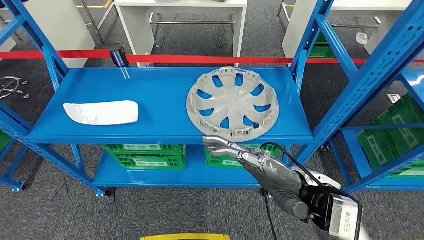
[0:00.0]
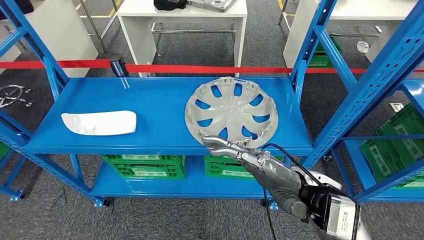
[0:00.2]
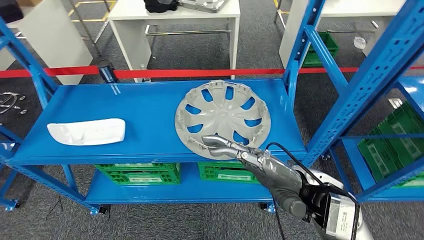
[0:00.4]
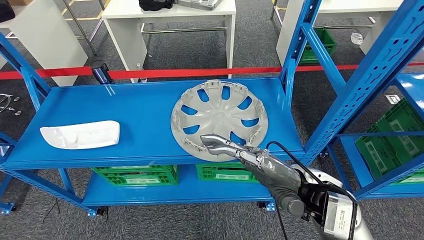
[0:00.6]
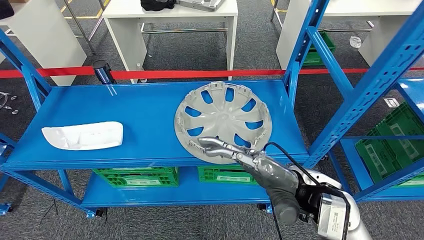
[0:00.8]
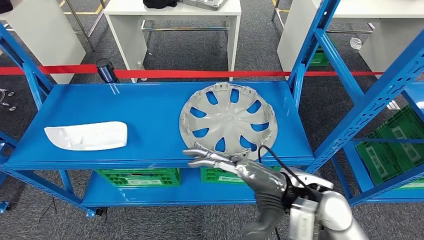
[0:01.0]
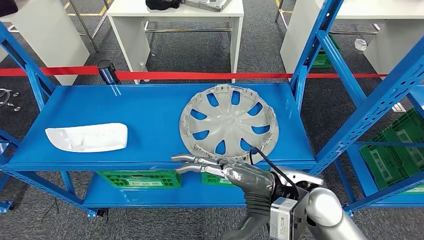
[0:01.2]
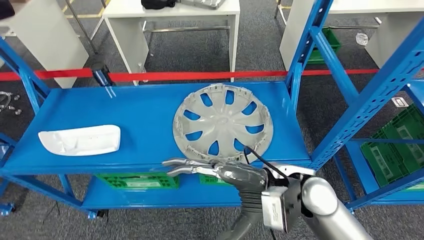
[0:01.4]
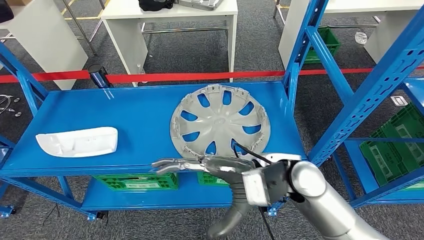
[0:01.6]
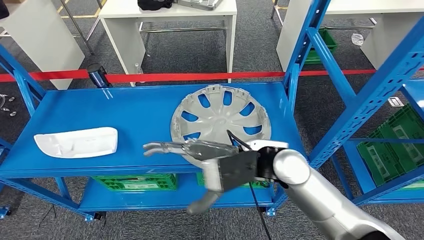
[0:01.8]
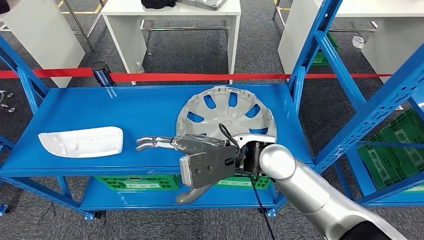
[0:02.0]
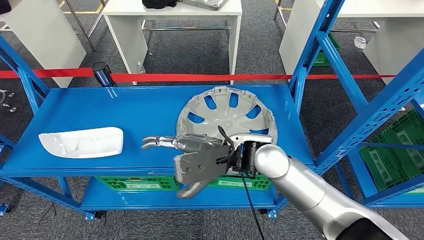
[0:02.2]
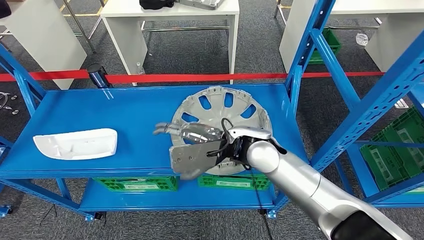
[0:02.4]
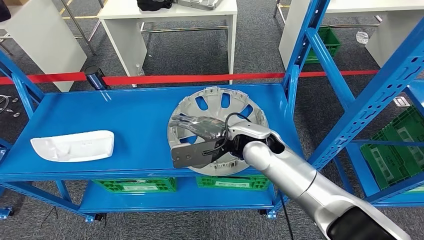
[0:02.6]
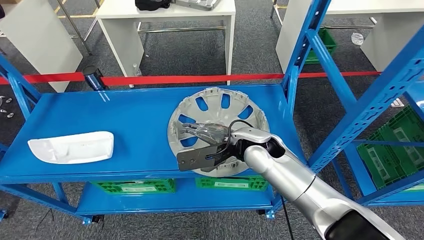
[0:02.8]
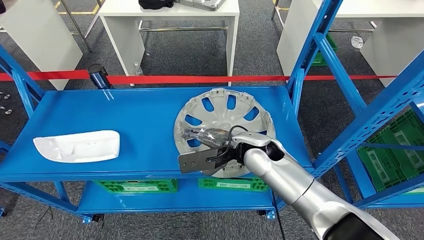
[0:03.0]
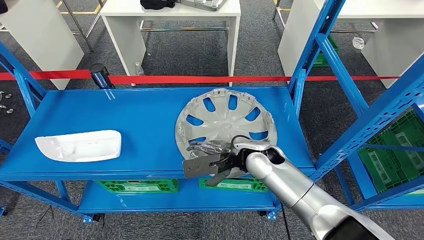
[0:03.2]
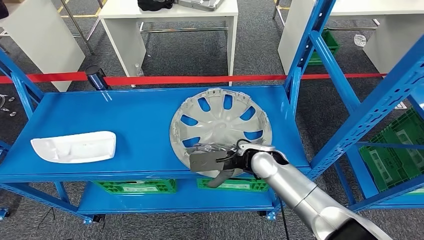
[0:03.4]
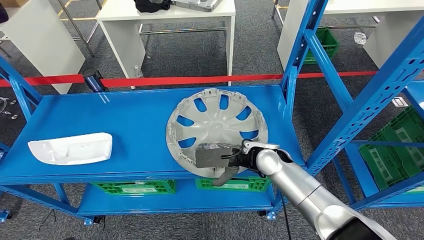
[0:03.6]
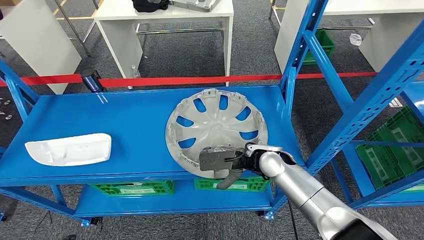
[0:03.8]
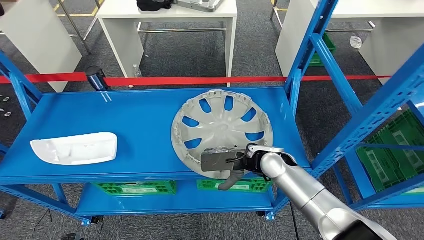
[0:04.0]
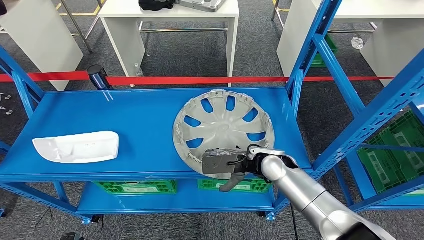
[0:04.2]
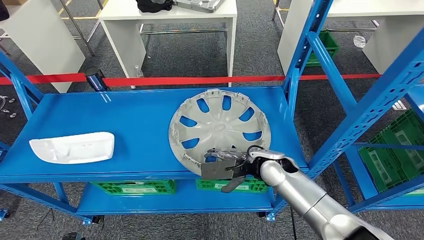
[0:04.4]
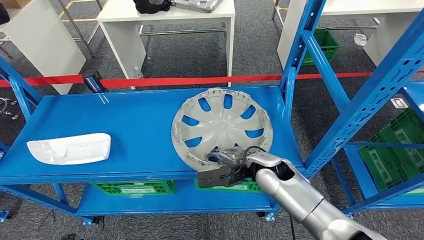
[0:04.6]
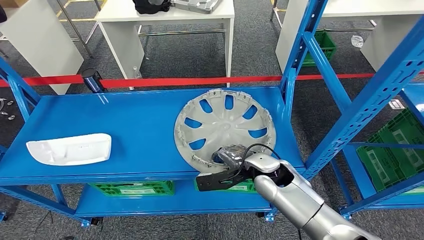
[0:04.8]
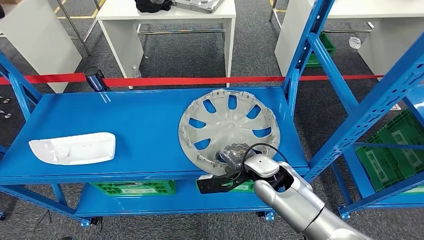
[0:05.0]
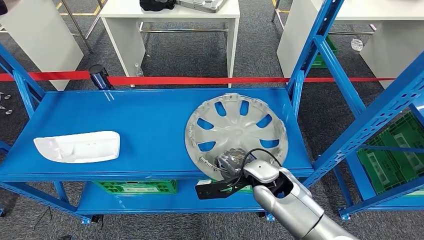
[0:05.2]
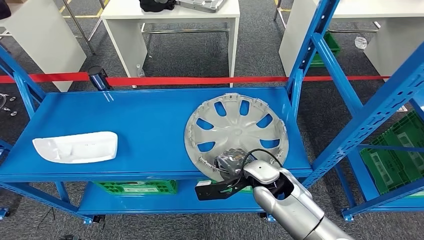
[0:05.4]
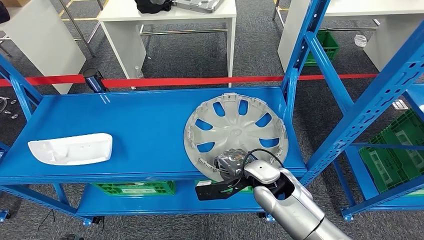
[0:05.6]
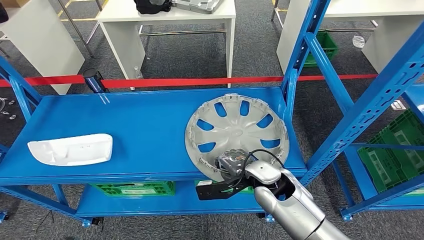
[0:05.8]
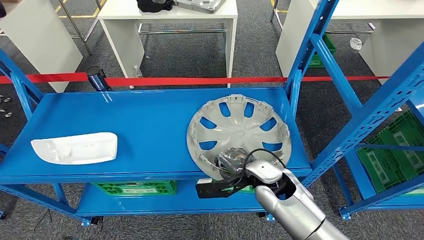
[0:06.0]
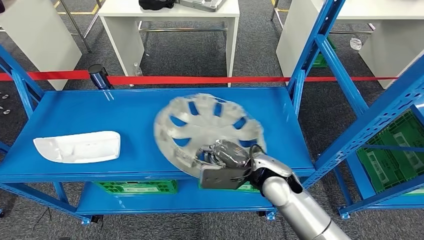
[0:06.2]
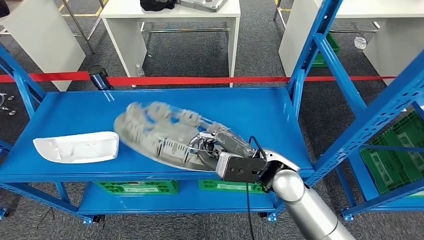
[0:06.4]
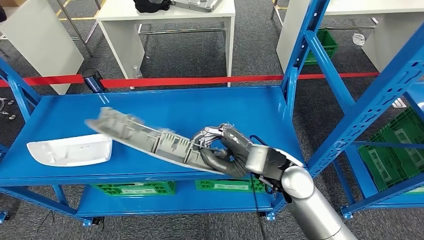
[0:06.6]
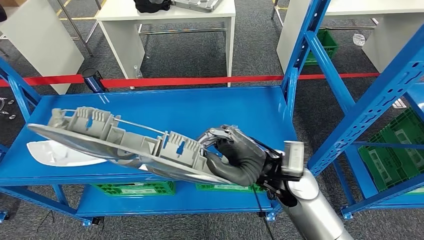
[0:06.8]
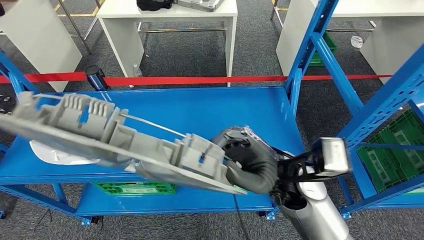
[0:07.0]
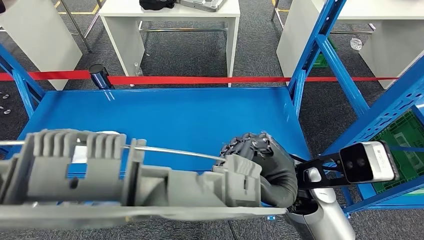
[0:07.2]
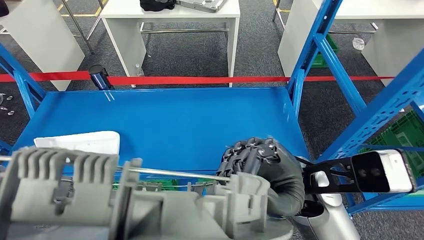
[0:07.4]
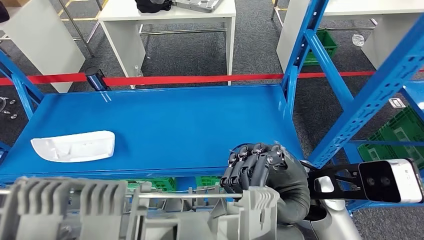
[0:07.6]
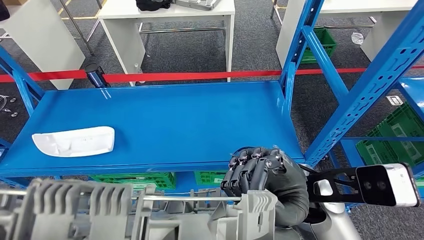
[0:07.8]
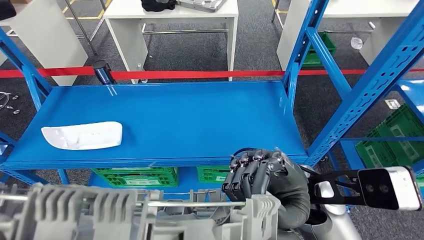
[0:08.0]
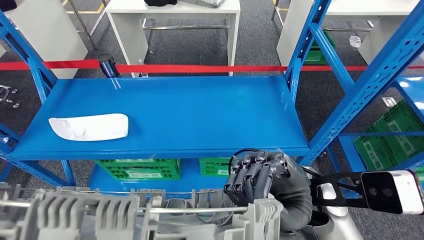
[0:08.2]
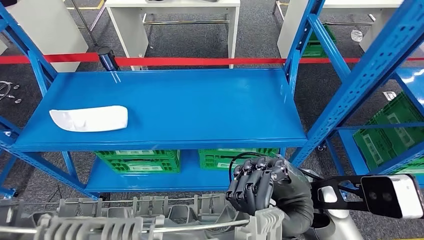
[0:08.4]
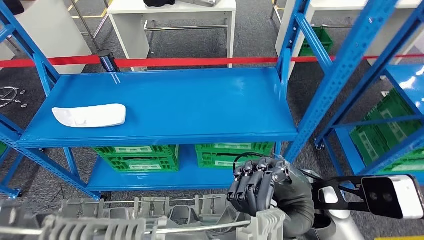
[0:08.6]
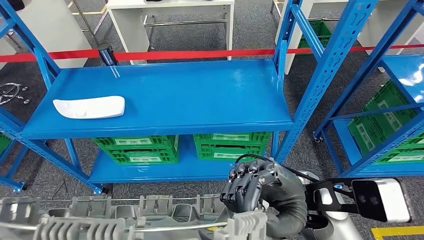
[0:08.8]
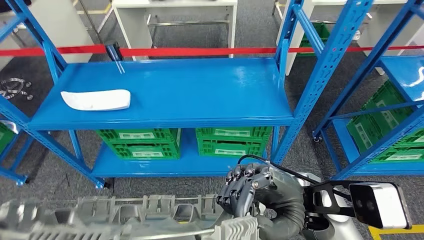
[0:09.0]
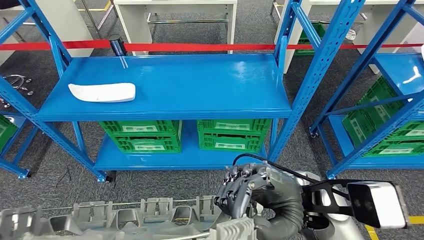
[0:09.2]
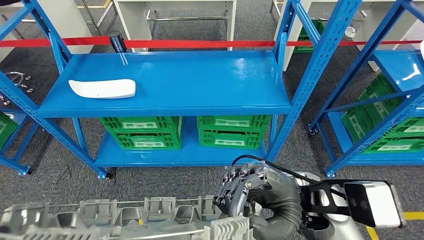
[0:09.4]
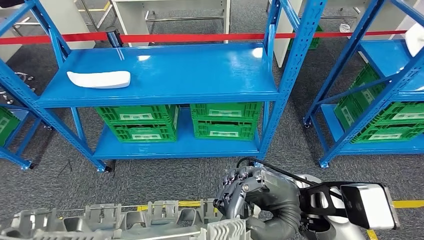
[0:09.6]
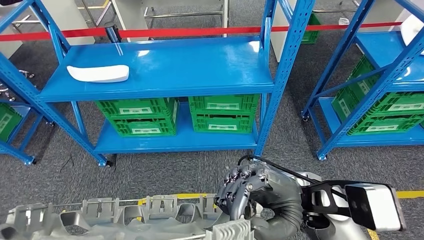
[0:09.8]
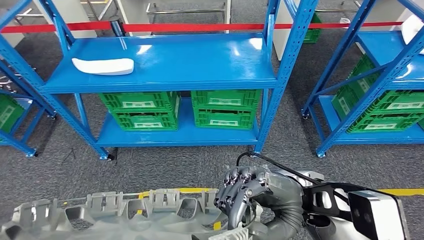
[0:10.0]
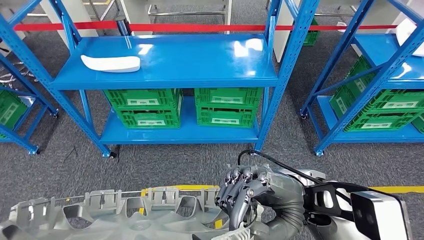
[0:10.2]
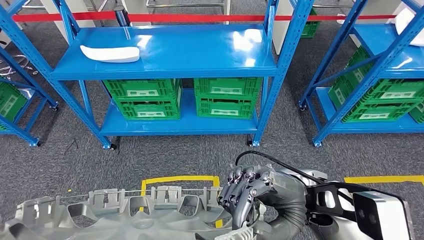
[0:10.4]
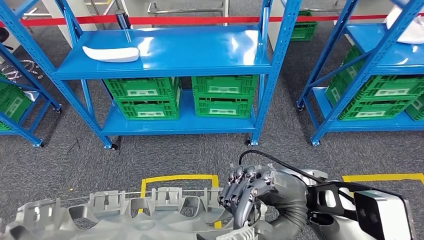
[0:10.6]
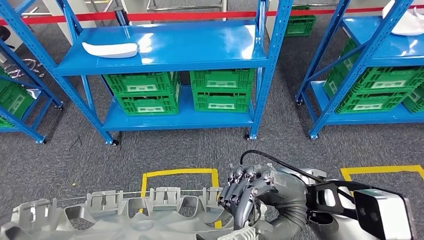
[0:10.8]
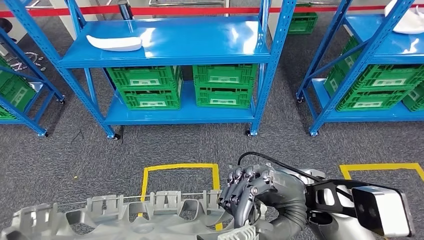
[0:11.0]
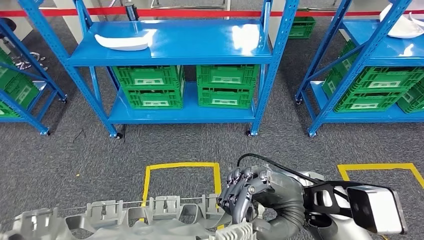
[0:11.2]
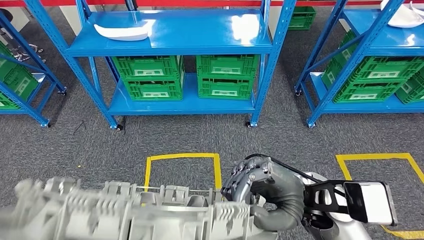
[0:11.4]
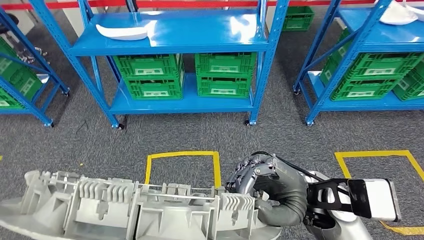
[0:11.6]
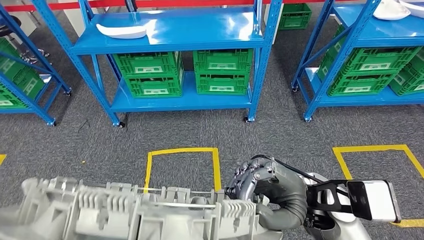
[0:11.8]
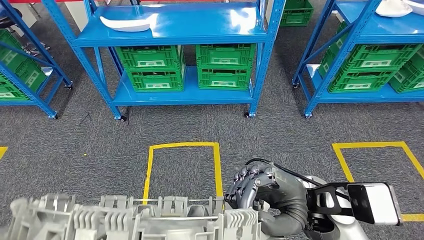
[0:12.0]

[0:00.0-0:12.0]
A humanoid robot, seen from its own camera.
Step, 0:00.0 to 0:07.6: Pick up the small component from the shelf.

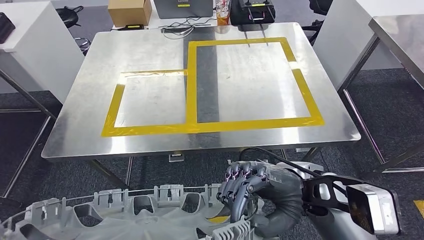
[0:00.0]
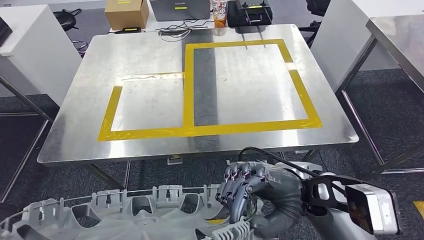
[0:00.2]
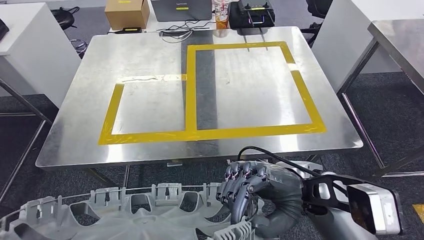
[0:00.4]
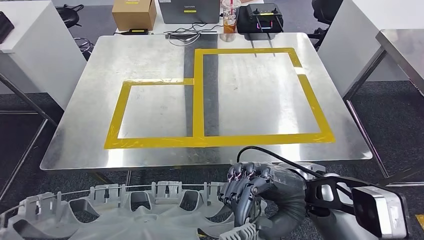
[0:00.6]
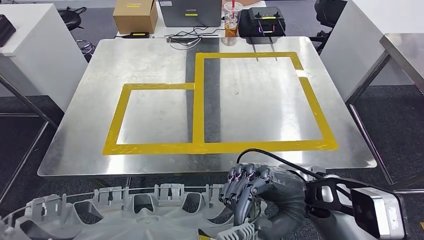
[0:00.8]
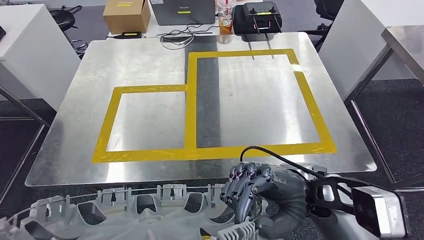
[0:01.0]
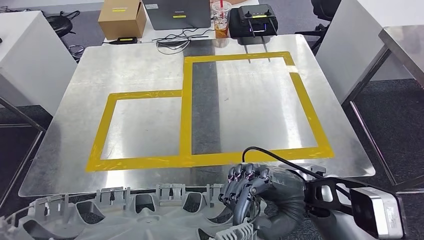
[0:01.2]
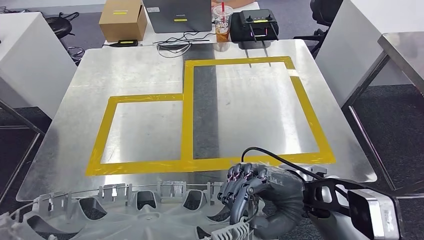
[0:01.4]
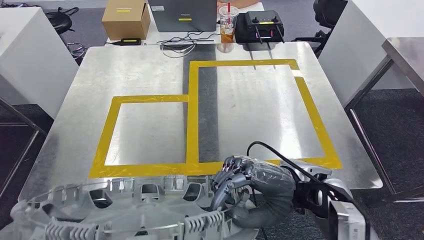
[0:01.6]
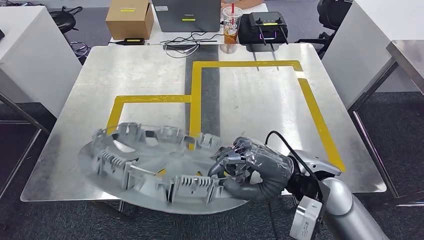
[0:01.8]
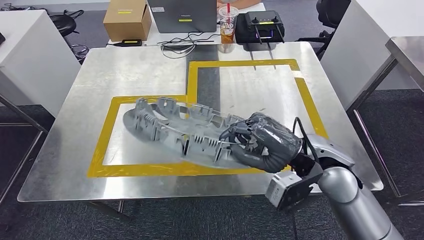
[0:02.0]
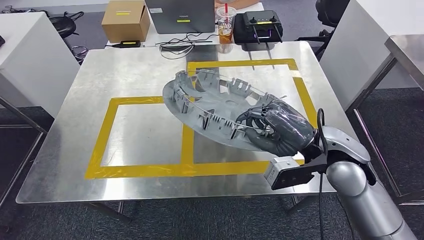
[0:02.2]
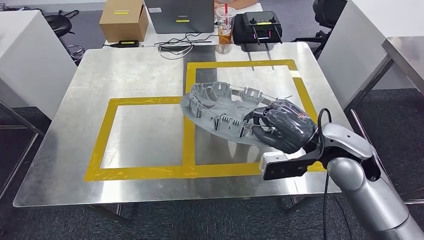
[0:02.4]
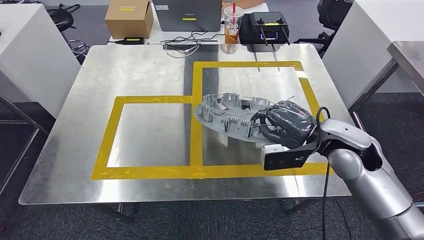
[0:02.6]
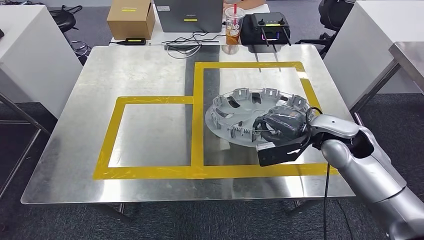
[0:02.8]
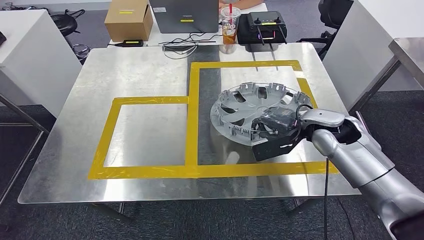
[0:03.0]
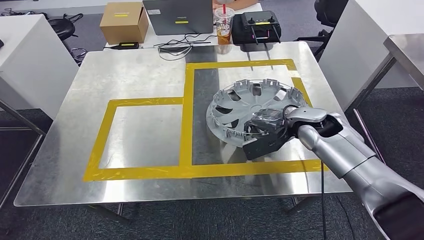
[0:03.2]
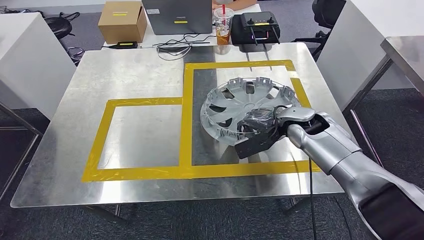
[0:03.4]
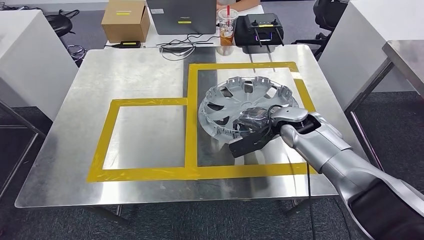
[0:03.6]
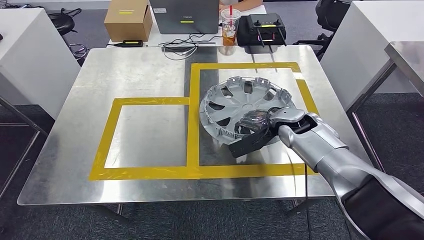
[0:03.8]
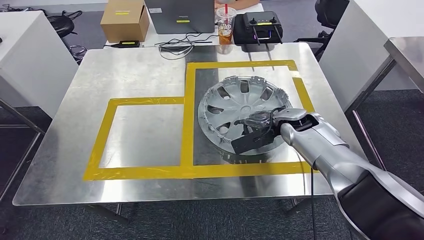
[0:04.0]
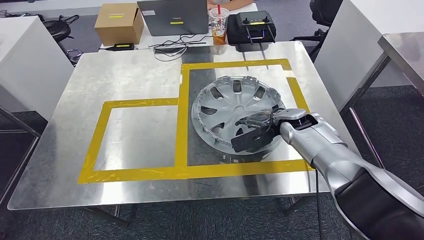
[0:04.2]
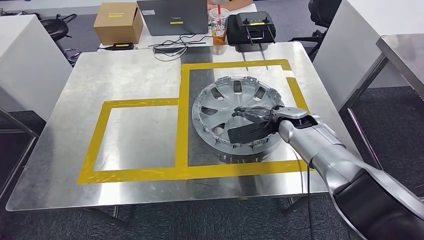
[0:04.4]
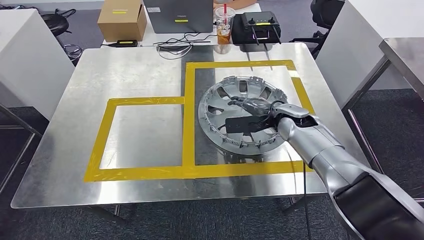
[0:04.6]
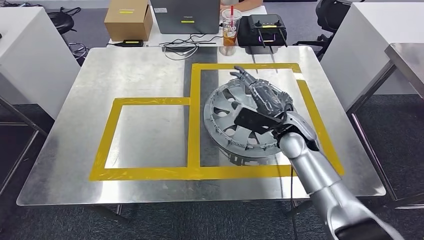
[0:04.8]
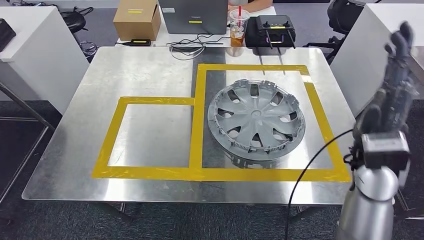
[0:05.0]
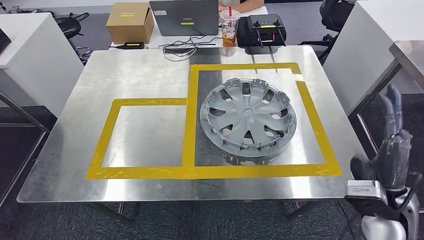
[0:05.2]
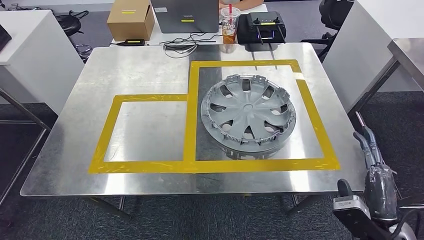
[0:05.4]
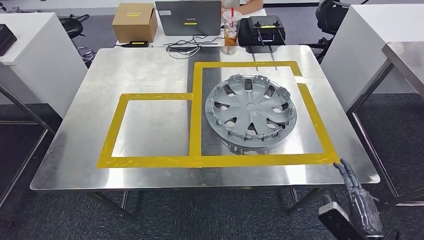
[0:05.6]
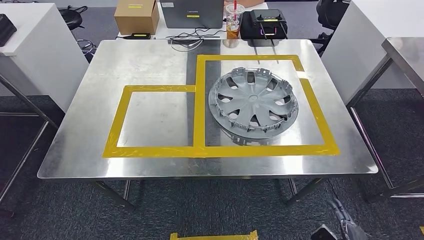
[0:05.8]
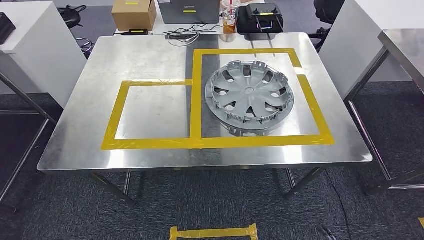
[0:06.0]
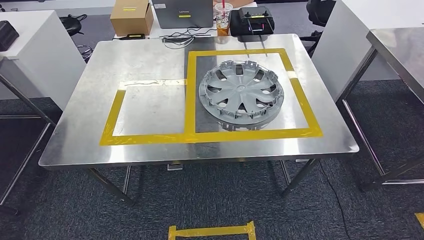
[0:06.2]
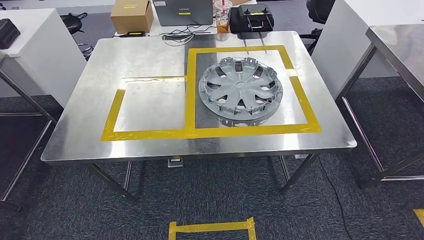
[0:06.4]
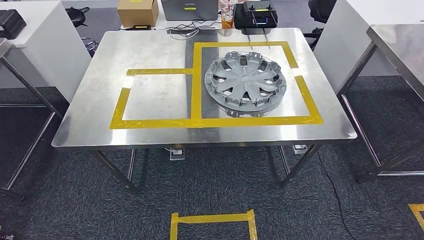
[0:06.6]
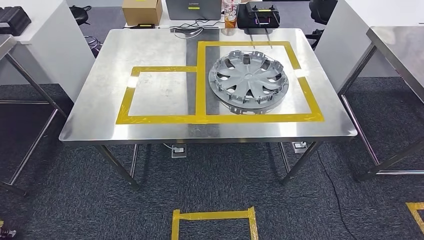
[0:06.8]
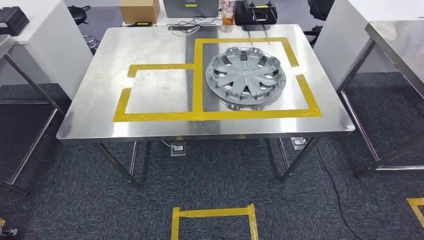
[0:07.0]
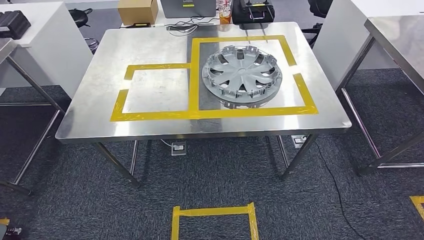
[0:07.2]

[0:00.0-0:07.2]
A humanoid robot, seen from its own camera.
Step, 0:00.0 to 0:04.8: Insert the small component into the corresponding slot on the workbench.
